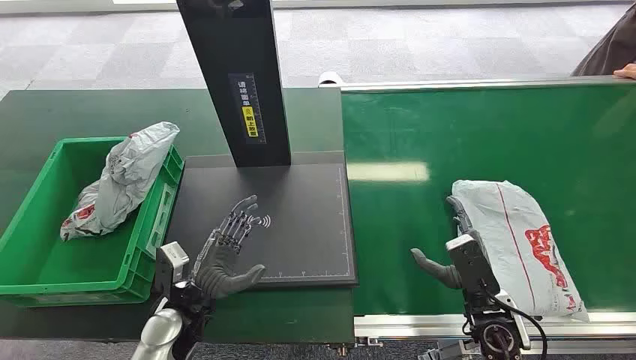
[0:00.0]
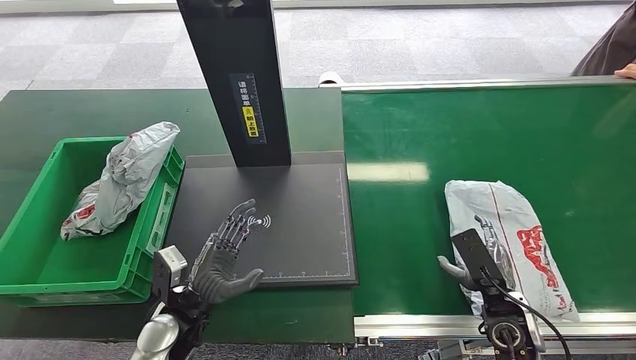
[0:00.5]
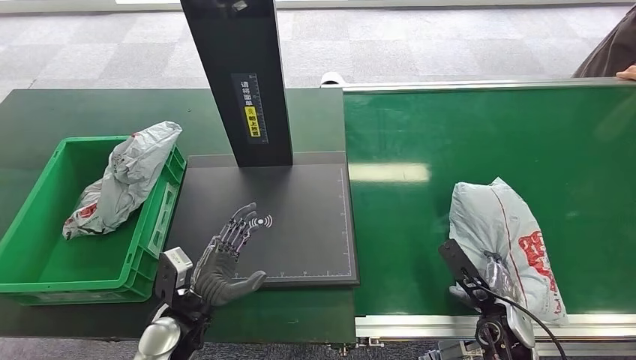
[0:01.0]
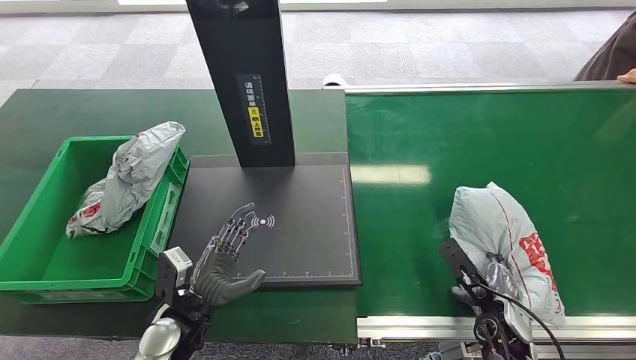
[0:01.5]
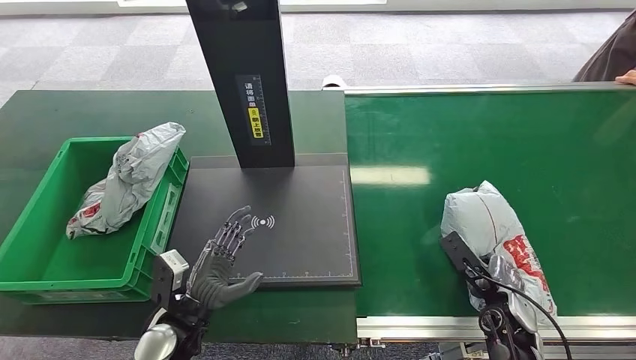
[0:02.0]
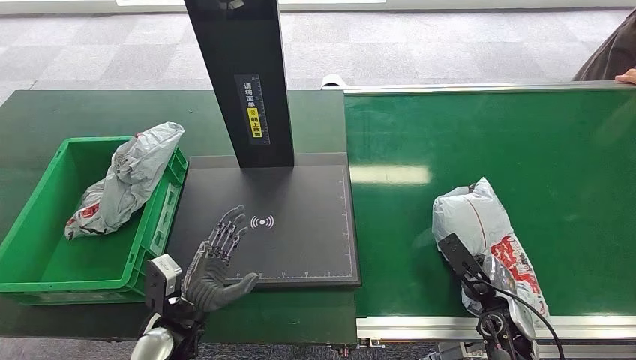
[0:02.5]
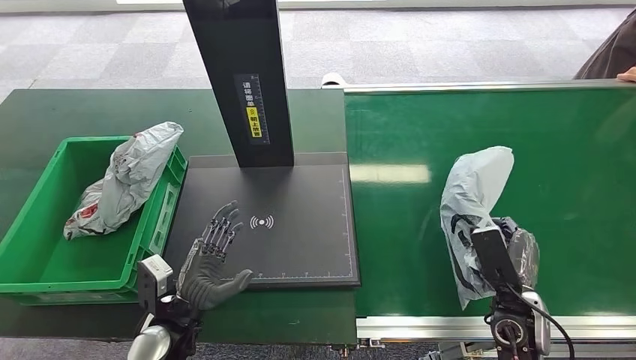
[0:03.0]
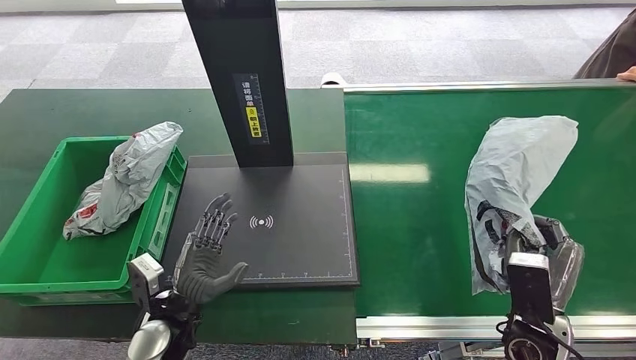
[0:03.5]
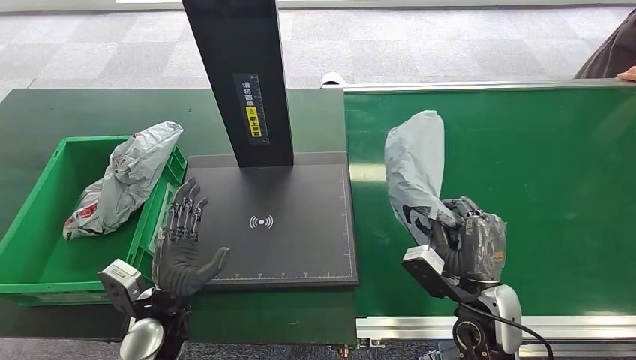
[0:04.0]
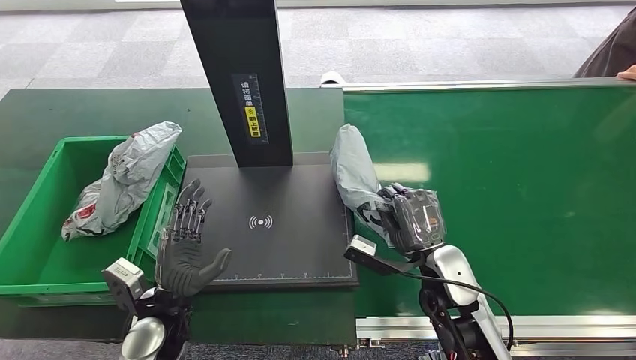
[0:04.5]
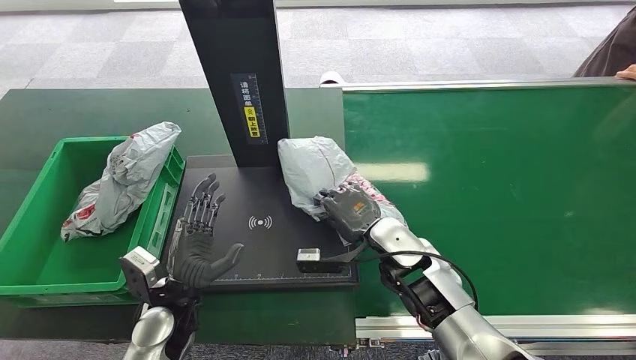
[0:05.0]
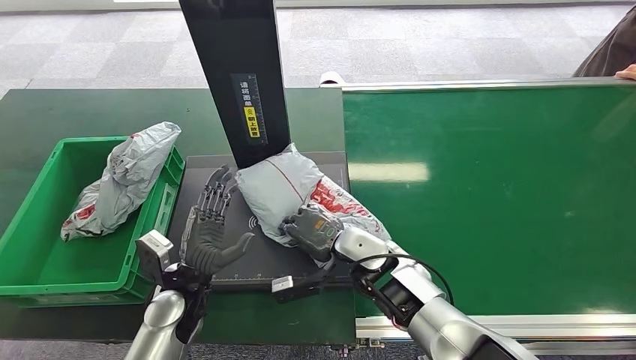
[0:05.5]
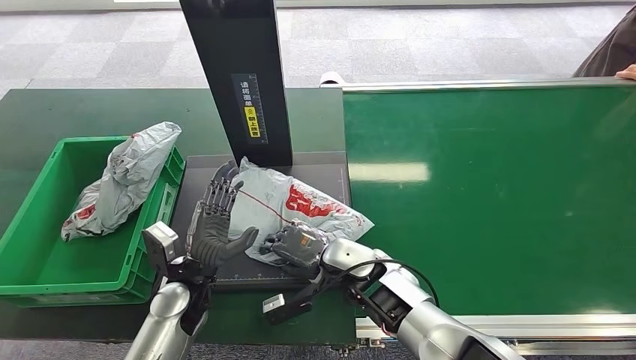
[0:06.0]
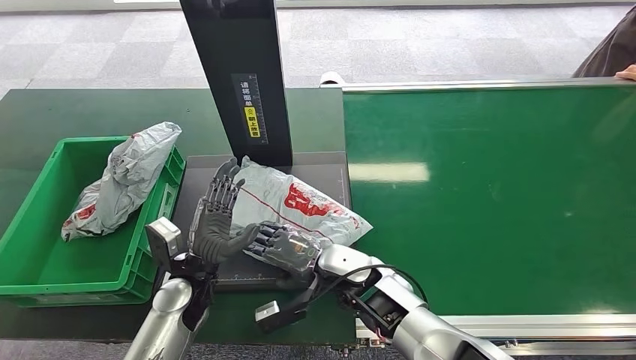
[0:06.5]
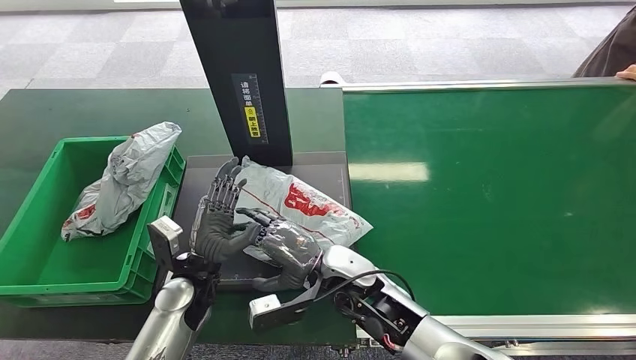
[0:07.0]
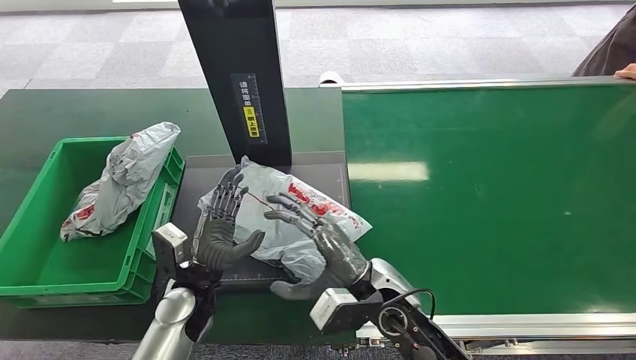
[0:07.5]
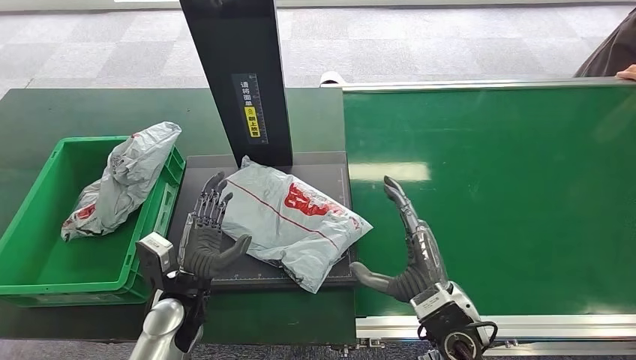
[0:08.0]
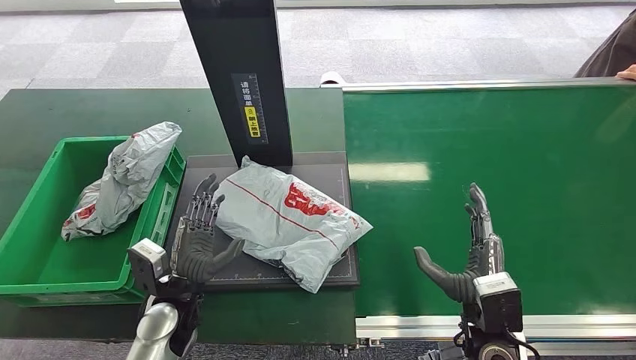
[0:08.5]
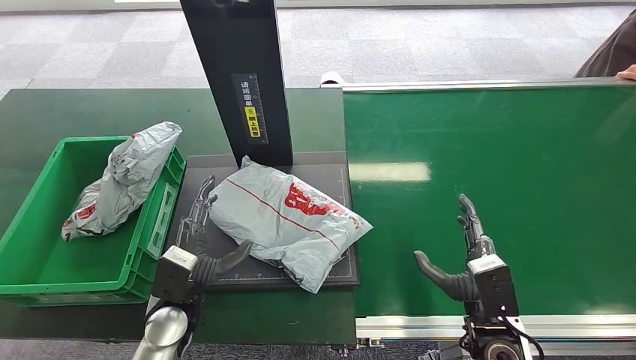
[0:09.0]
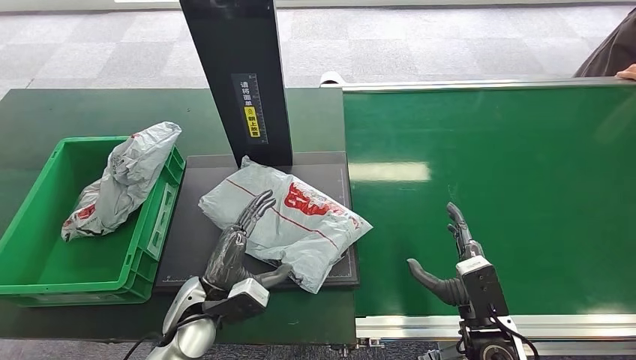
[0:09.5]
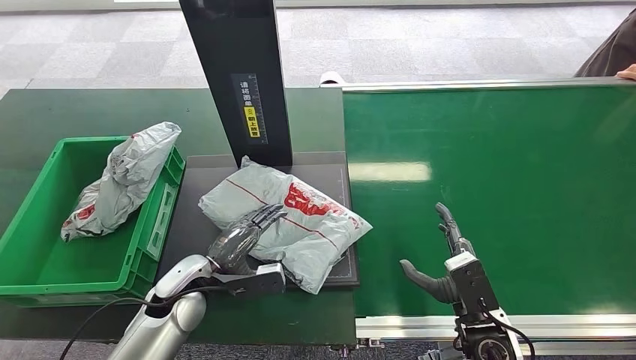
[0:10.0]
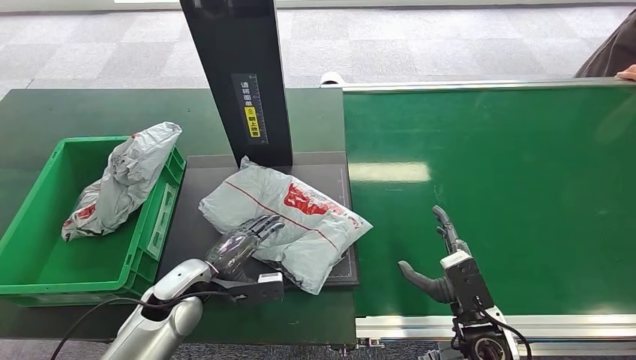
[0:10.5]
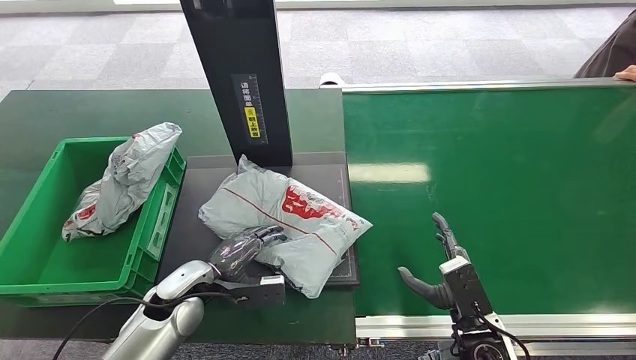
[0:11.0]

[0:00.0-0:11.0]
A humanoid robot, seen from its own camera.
Step, 0:00.0 to 0:03.5: Pick up the package from the conveyor belt.
Step, 0:04.0 to 0:07.5: Place the package onto the inbound machine.
0:05.5 to 0:07.5: The right hand is displaced backward by approximately 10 cm.
0:07.5 to 0:09.0: The right hand travels to the right by some 15 cm.

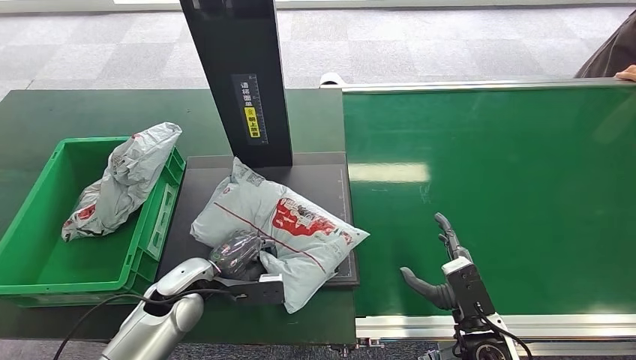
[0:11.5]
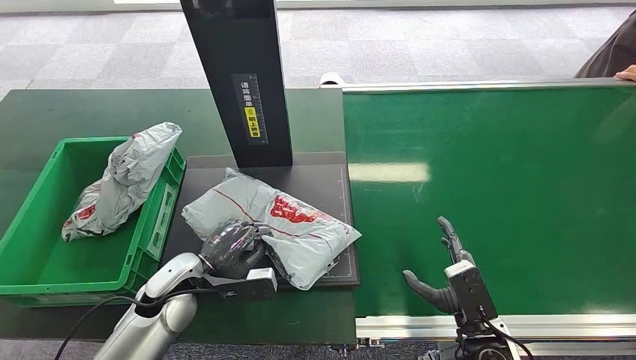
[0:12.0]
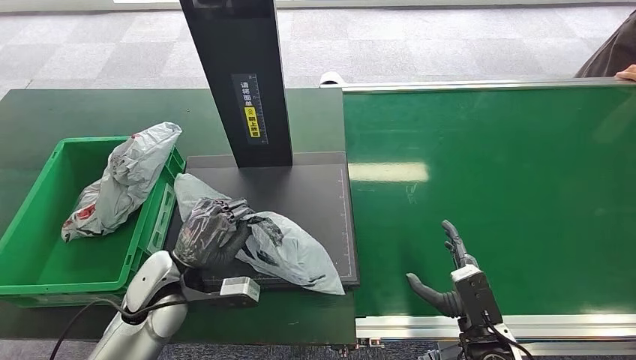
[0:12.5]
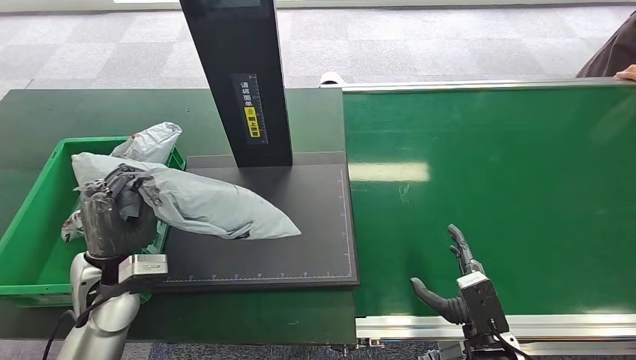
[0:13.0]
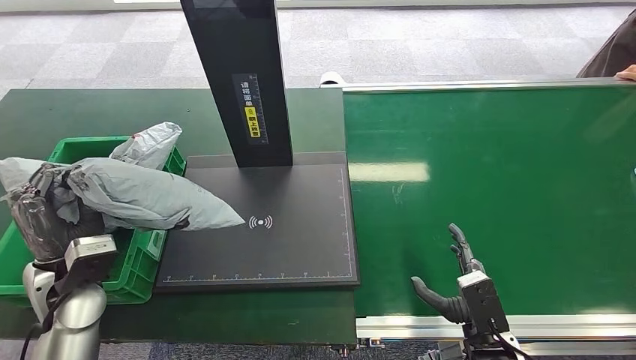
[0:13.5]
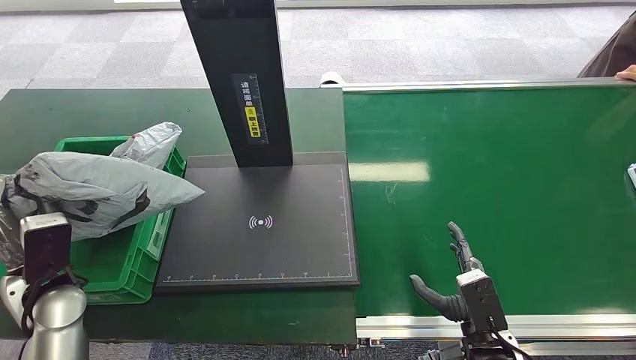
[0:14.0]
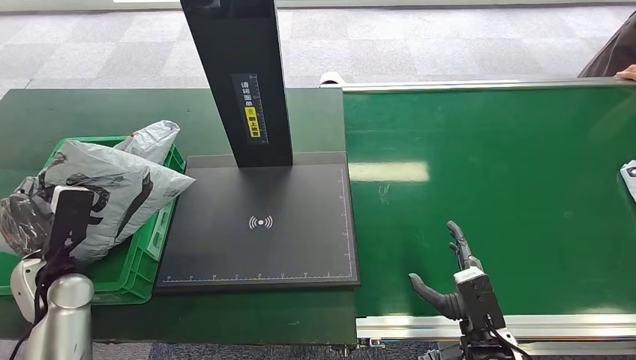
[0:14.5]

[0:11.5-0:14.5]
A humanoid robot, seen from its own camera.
Step, 0:13.5 to 0:14.5: Place the package into the parcel locker.
0:11.5 to 0:13.0: The left hand goes some 10 cm upward and to the left.
0:13.0 to 0:14.5: The left hand travels to the left by approximately 10 cm.
